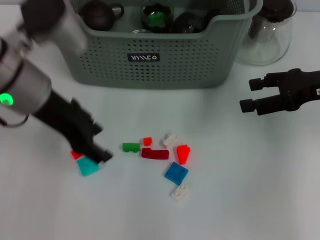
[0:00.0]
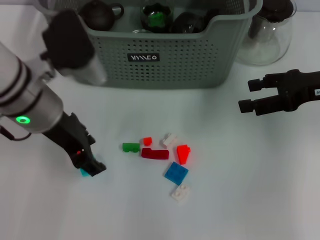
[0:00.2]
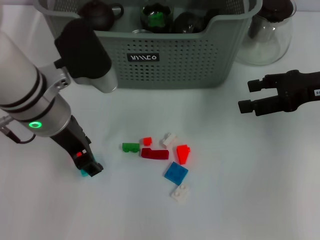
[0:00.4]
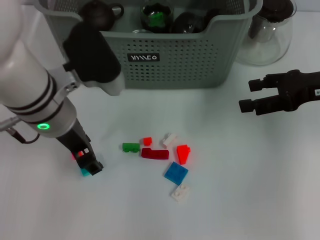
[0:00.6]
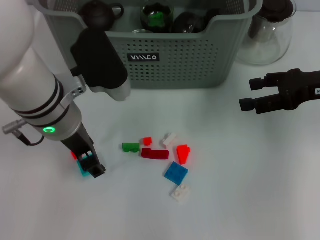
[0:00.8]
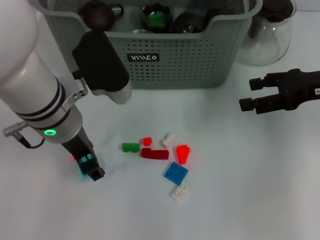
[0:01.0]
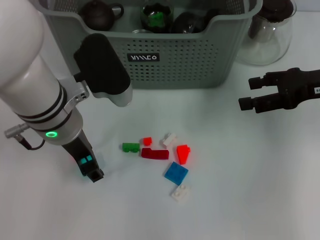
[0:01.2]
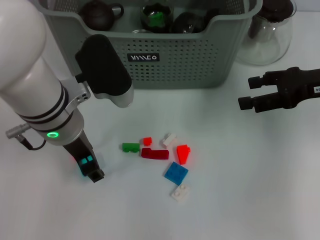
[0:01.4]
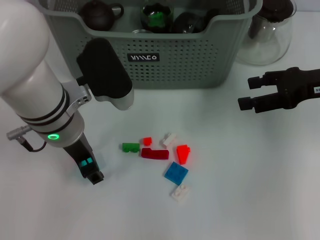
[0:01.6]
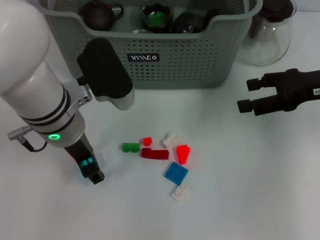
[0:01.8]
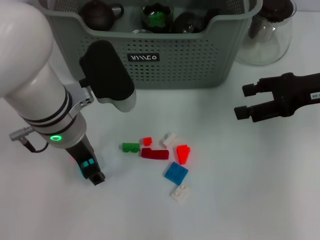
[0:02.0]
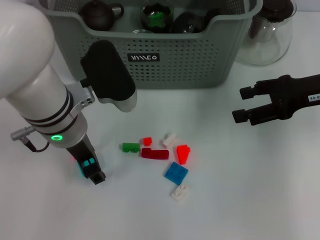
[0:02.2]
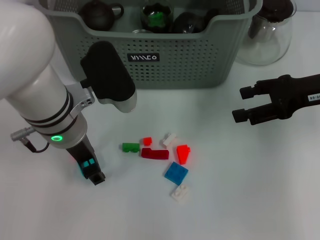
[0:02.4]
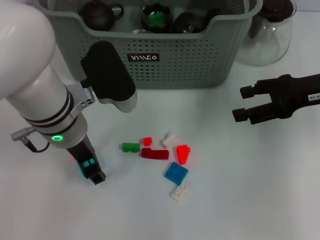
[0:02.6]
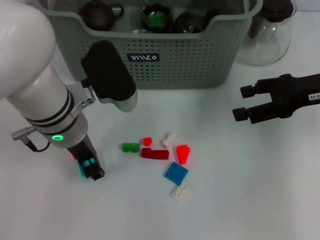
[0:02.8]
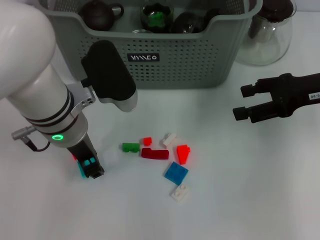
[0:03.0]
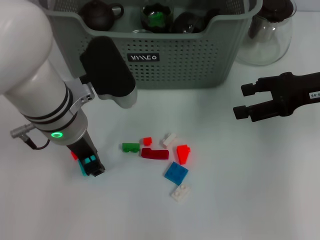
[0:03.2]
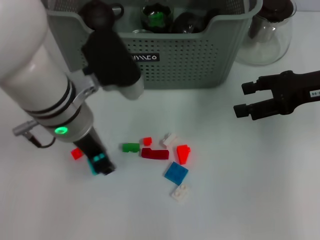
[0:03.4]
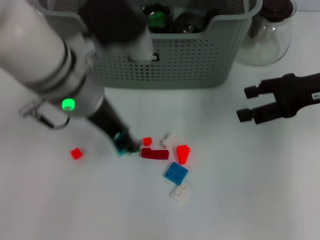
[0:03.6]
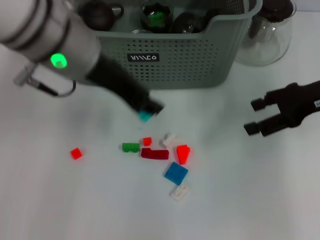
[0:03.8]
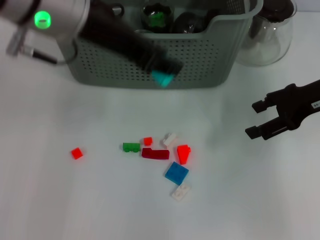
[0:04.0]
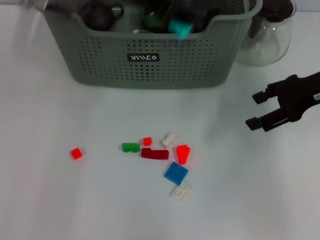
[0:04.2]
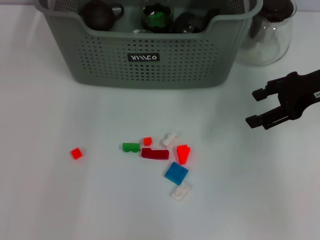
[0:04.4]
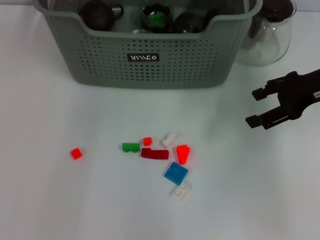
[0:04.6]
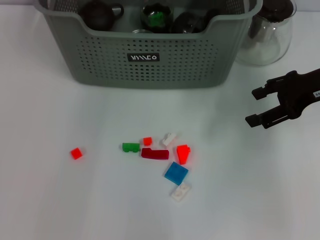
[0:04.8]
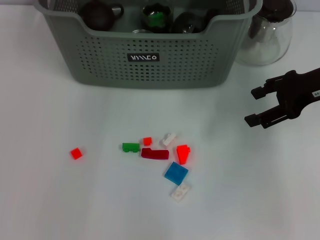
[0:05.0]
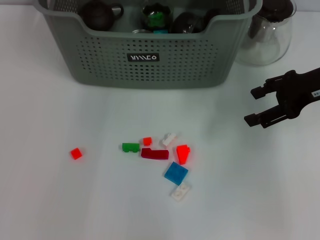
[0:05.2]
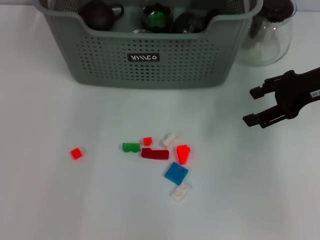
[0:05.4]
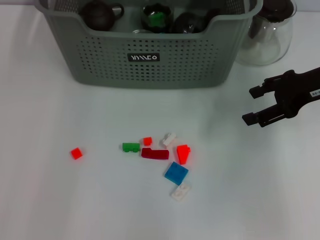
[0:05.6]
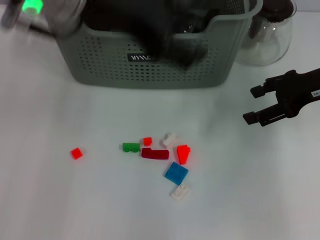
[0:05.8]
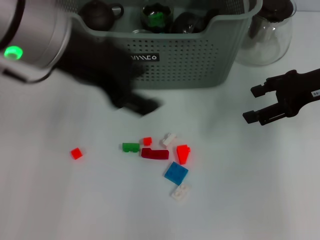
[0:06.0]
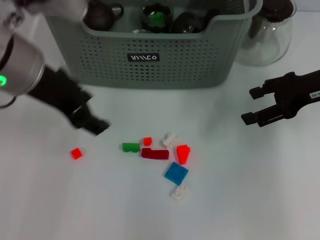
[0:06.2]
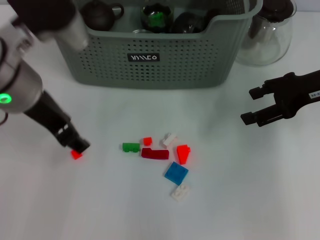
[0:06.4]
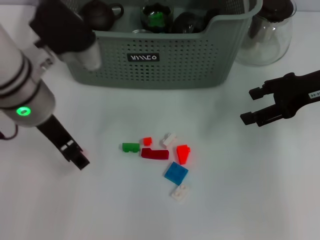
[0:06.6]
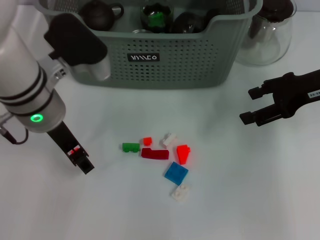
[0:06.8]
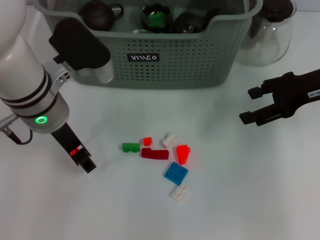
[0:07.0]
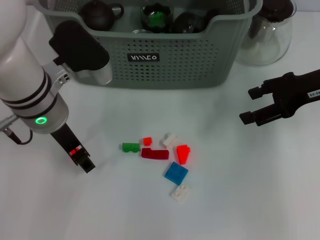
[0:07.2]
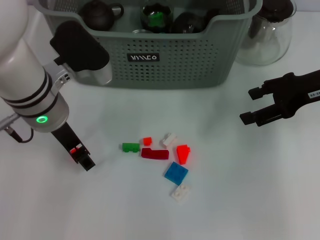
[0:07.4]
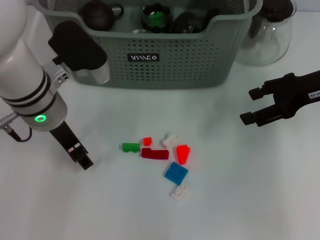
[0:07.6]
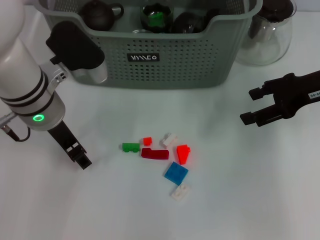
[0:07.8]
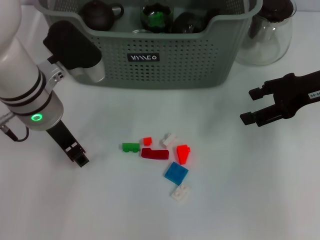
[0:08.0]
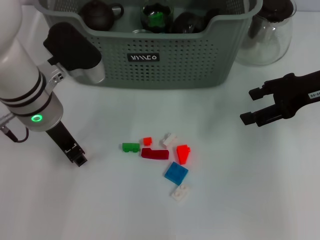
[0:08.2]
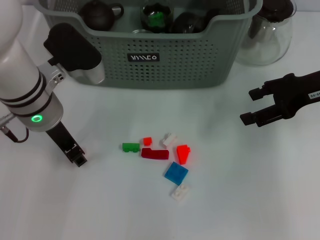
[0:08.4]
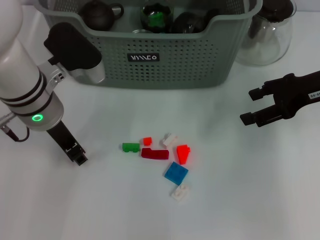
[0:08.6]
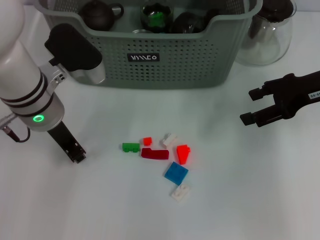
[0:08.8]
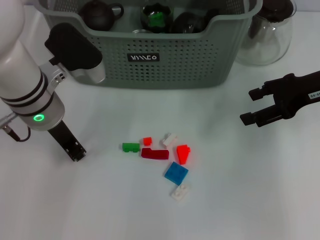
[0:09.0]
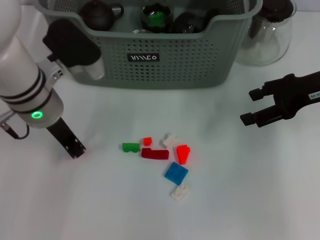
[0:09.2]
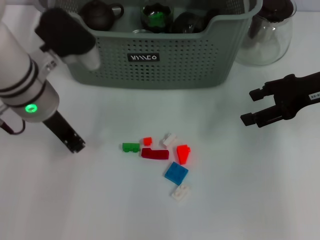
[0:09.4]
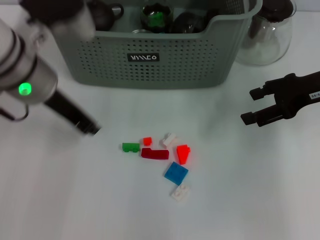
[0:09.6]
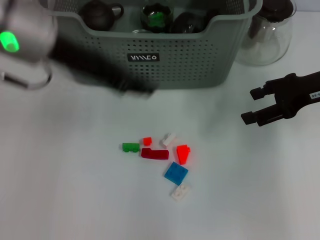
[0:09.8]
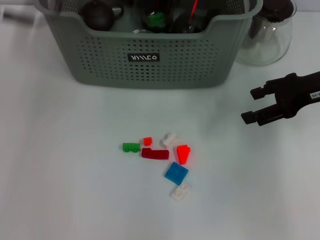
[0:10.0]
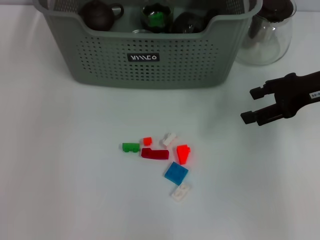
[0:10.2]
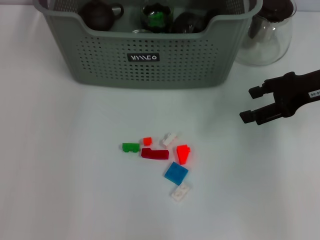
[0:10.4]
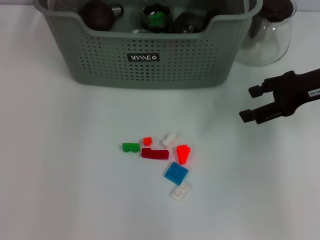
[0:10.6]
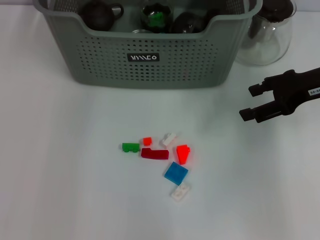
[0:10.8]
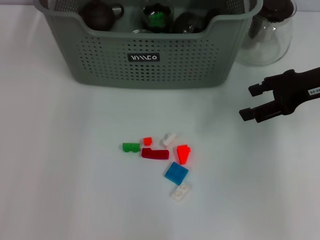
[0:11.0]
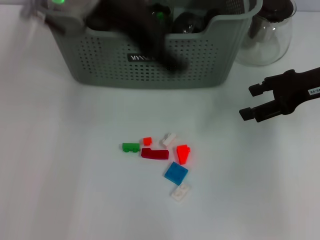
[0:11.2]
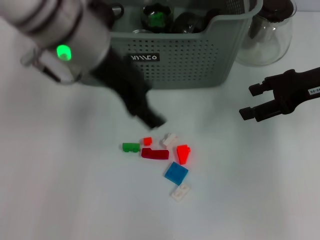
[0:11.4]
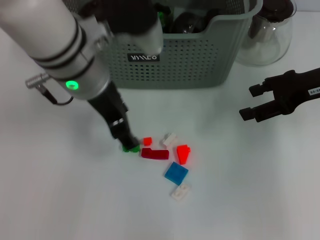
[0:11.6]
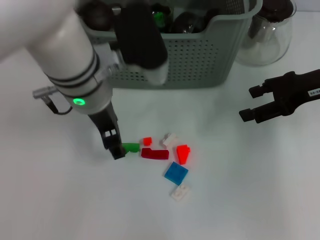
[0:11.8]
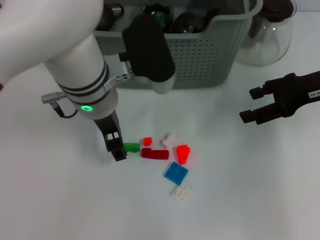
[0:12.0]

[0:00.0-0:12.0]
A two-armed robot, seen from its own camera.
Task of the whole recording: pick up the teacup on the table and place it into the storage bin, pick up the block on the table and place it into the storage bin.
Step, 0:00.0 to 0:02.8: Grasp the light blue block with left gripper.
Step, 0:03.2 to 0:05.0: Place the light blue block in the storage box with left gripper.
Step, 0:05.4 to 0:09.0: Grasp the orange block with left gripper.
Step, 0:09.2 to 0:10.4: Place the orange block in the storage box with left gripper.
0:00.0 to 0:01.6: The left gripper is displaced downward by some 5 cm.
0:01.6 to 0:03.0: Both grippers stay put.
0:03.0 to 0:04.4: The left gripper heads upward and forward, covering about 20 cm.
0:04.4 to 0:06.0: The left gripper heads backward, covering about 10 cm, and opens.
0:06.0 to 0:07.6: The left gripper travels downward by about 15 cm.
0:07.6 to 0:09.0: The left gripper closes up.
0:09.0 to 0:10.4: The left gripper moves upward and forward, roughly 20 cm.
0:10.4 to 0:12.0: The left gripper shifts about 20 cm downward, backward and to the right, and opens.

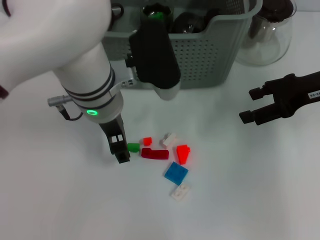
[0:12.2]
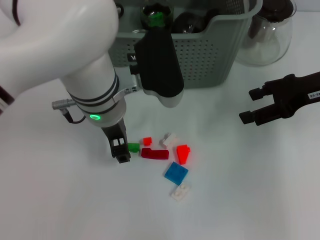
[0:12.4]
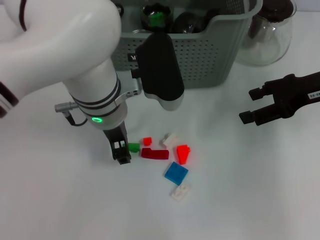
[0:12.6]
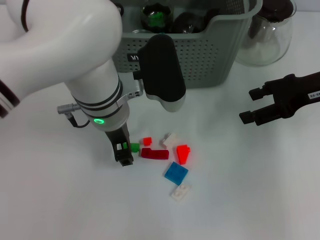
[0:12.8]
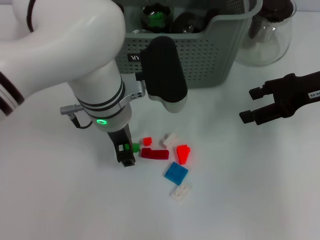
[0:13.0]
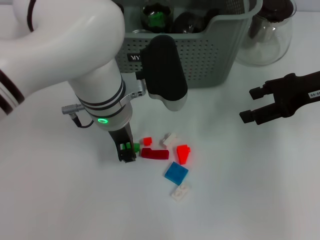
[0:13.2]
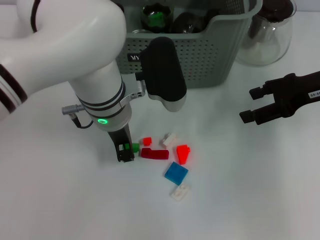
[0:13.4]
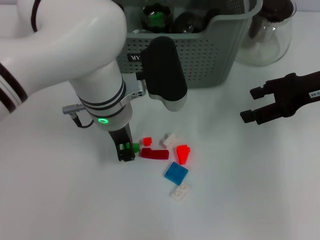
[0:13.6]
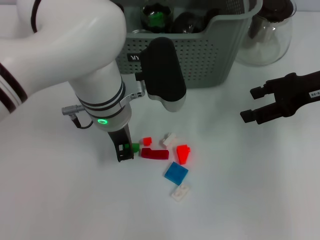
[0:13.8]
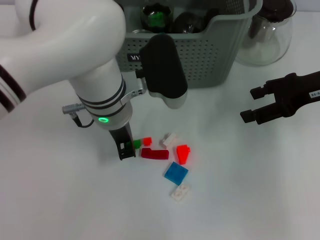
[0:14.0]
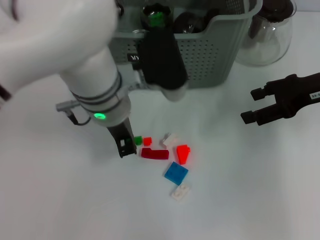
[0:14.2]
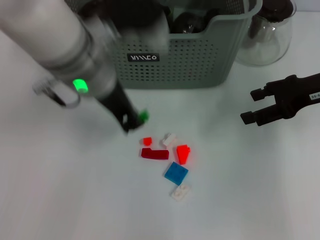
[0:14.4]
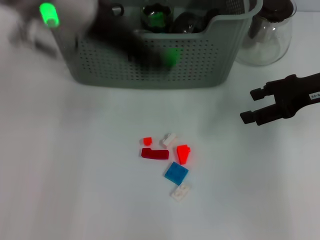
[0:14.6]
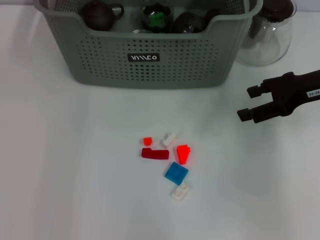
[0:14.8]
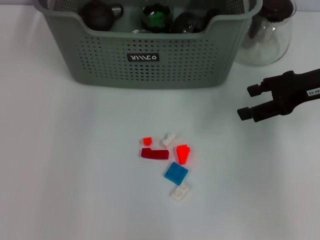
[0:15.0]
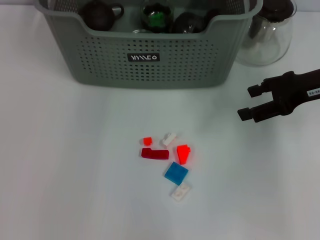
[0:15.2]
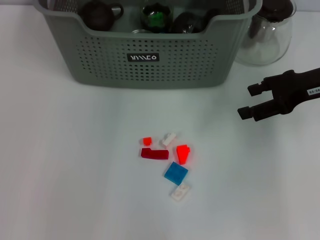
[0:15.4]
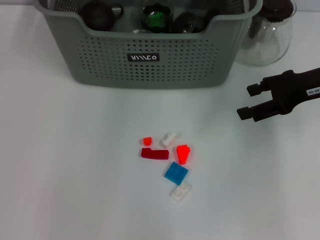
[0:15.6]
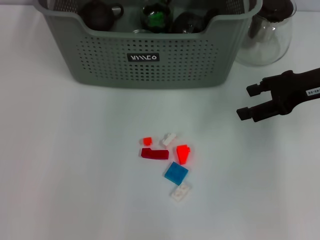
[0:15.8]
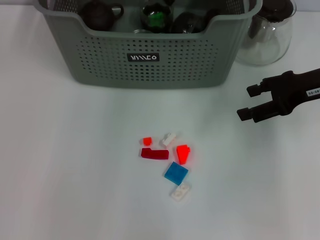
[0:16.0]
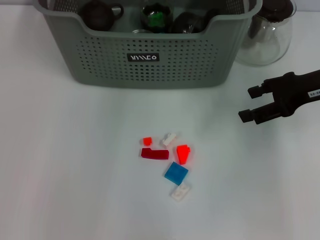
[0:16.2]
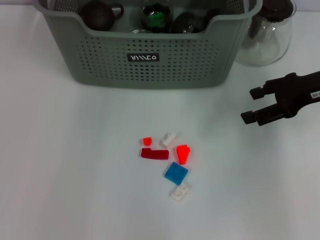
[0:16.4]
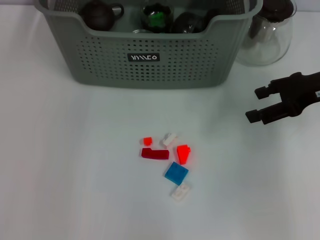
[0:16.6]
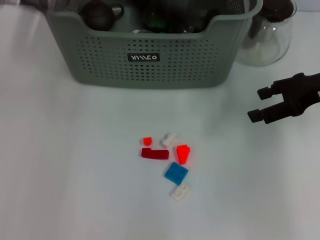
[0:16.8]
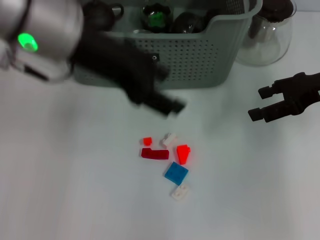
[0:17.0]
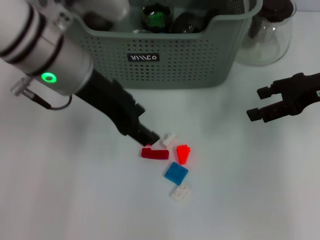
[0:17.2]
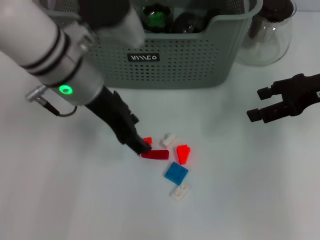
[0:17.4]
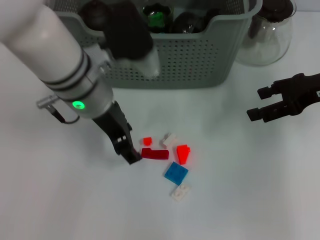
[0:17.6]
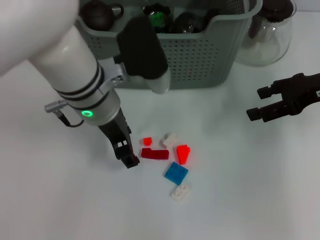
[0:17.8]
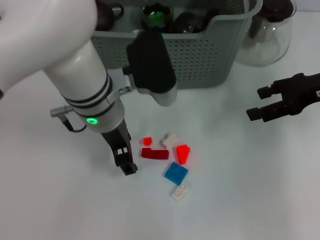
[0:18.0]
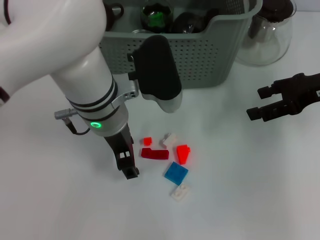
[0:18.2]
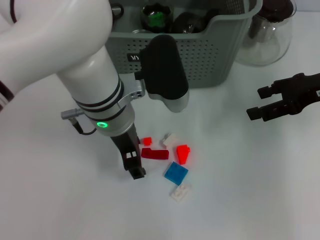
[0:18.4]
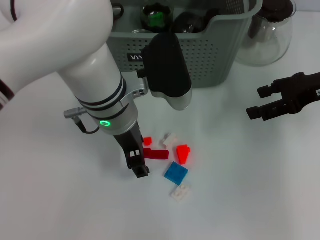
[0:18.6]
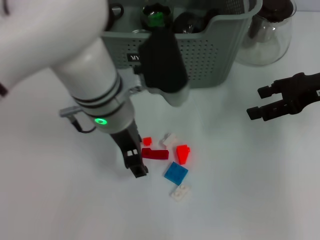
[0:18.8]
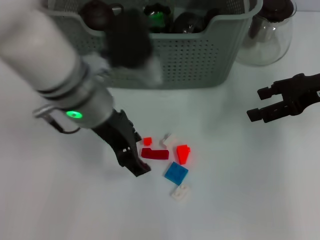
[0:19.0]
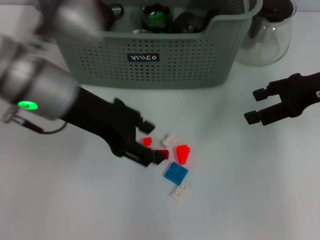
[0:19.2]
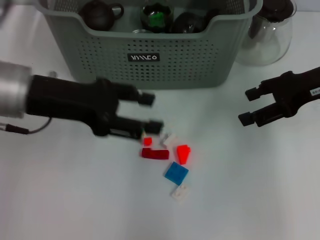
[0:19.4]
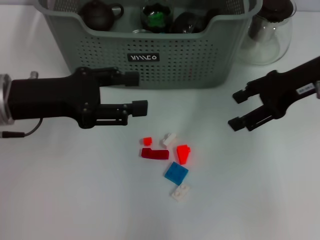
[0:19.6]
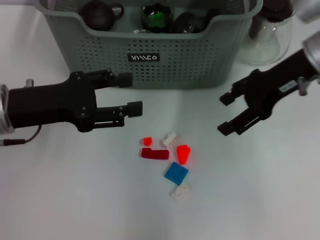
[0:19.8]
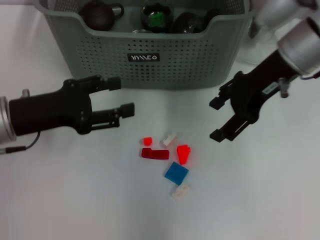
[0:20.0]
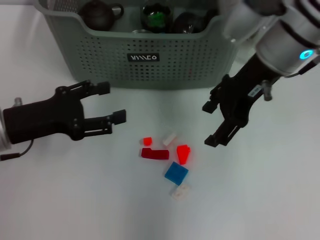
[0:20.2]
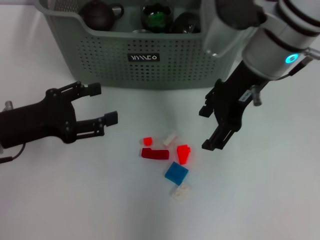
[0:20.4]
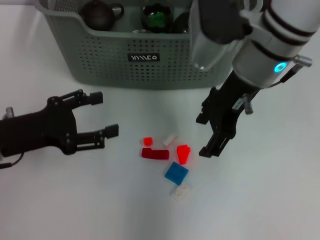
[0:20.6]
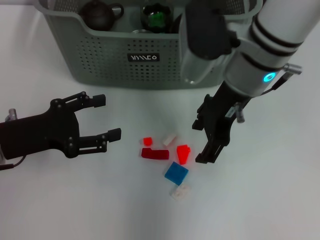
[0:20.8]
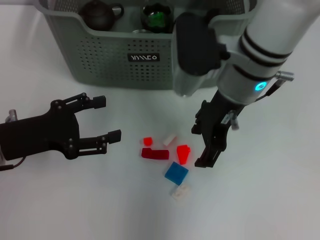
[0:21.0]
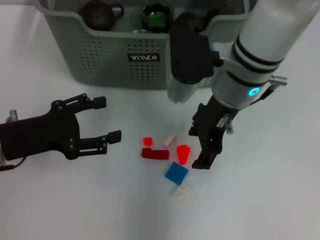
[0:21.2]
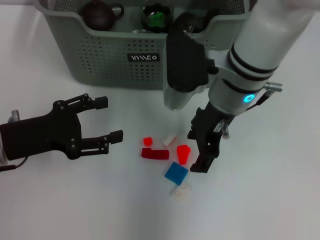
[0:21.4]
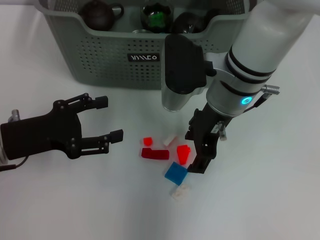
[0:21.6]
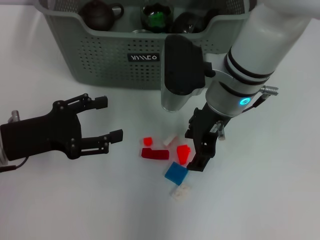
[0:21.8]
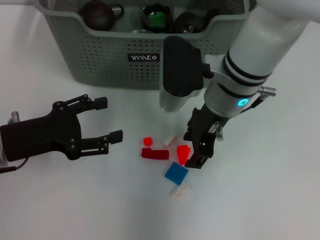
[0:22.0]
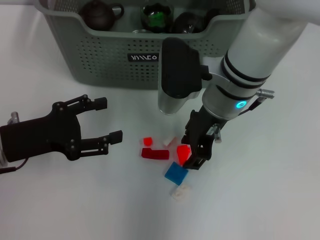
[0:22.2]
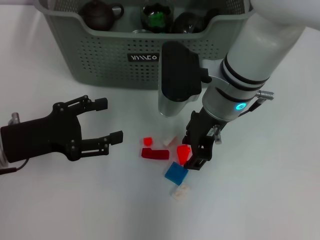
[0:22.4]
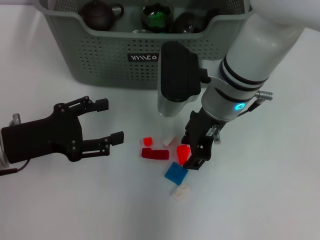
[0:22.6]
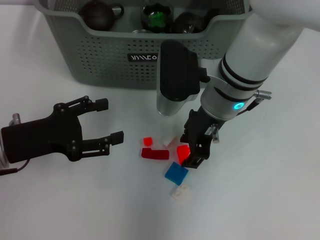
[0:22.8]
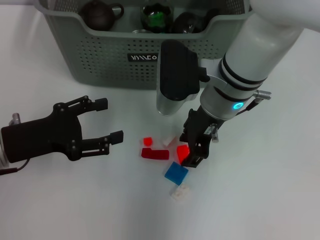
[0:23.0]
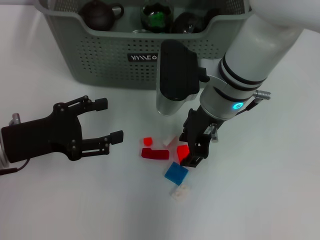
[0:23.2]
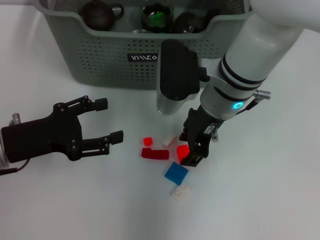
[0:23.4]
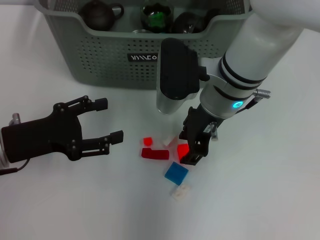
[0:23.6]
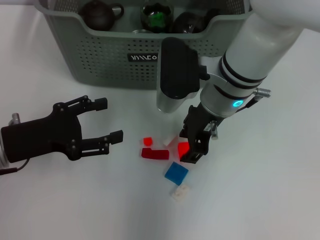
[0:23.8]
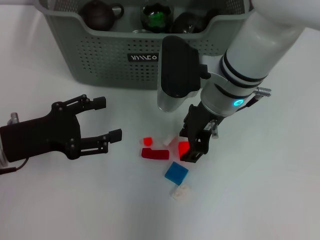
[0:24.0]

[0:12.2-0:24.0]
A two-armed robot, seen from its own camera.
Task of the whole recording: pick up the teacup on the table and place it into the storage bin, pick up the block on the table and place it into the storage bin.
Step, 0:12.2 to 0:13.8: Grasp the green block with left gripper.
Step, 0:14.0 to 0:16.0: Place the green block in the storage box with left gripper.
0:12.2 to 0:13.6: The left gripper closes.
0:13.6 to 0:15.2: The left gripper is displaced upward and forward by some 20 cm.
0:16.6 to 0:18.2: The left gripper heads downward, covering some 20 cm.
0:18.2 to 0:19.6: The right gripper ends up approximately 5 cm from where it was; the left gripper moves to the left, approximately 15 cm.
0:19.6 to 0:21.0: The right gripper is displaced to the left by roughly 15 cm; the left gripper goes some 5 cm downward.
0:21.0 to 0:22.6: There are only small adjustments of the grippers.
0:22.6 to 0:24.0: Both grippers stay about where they are.
